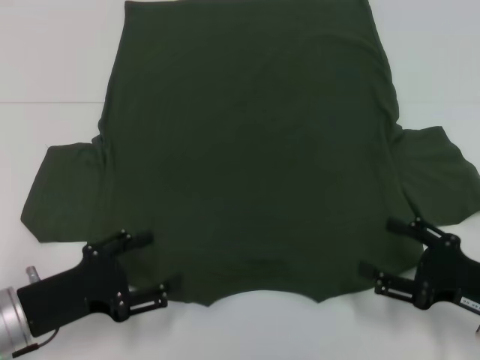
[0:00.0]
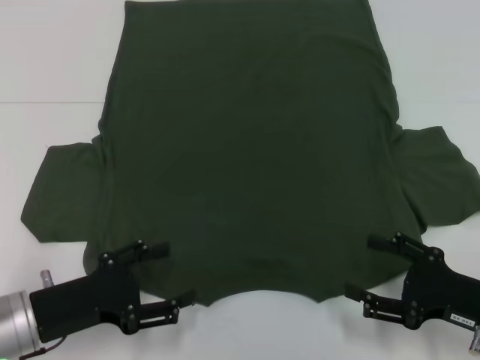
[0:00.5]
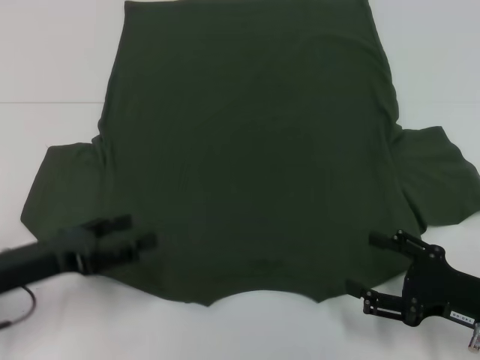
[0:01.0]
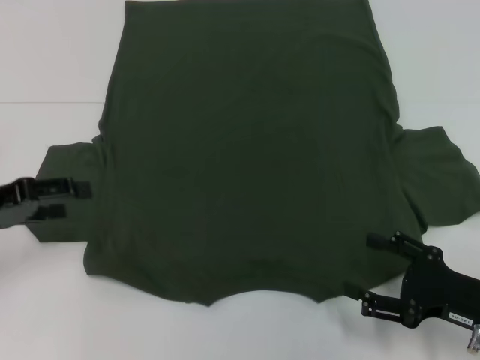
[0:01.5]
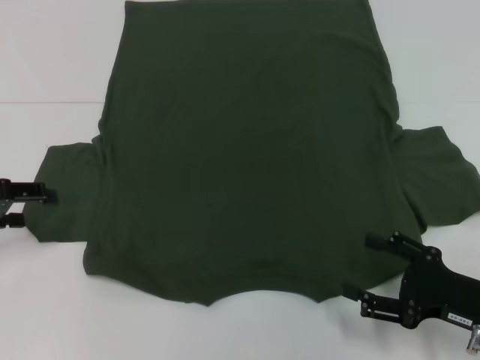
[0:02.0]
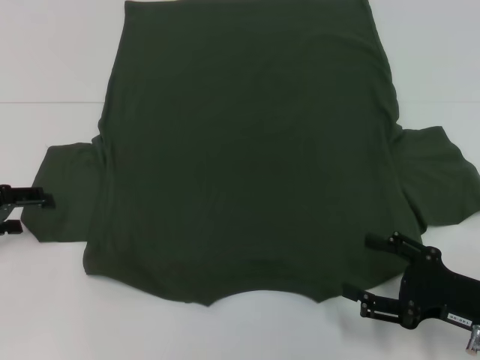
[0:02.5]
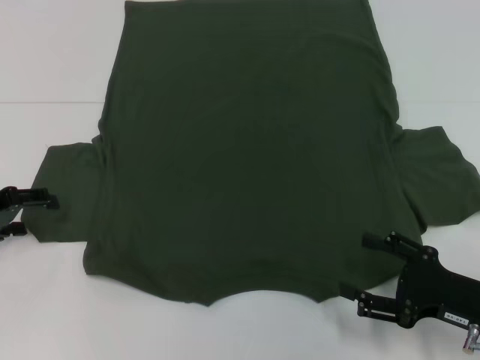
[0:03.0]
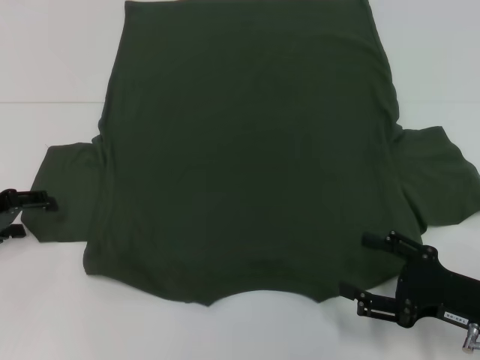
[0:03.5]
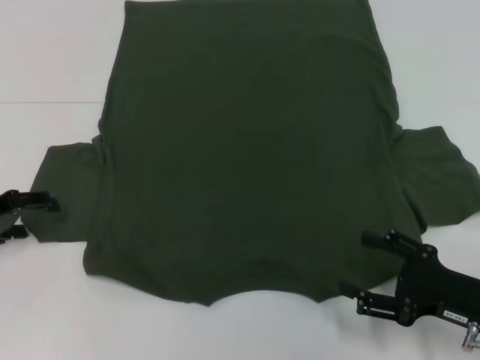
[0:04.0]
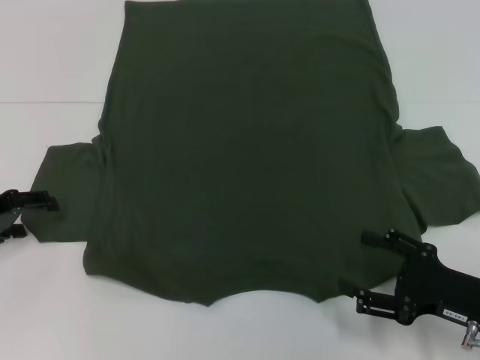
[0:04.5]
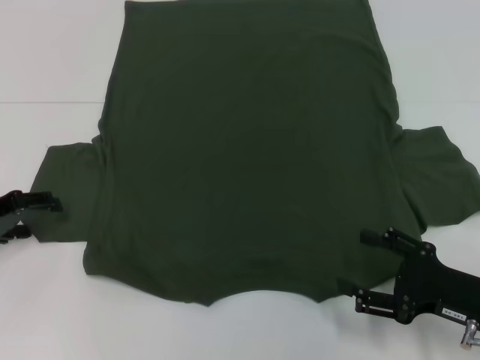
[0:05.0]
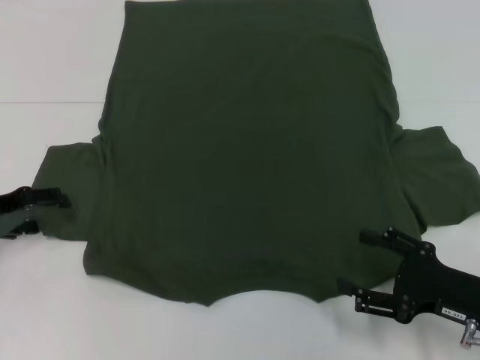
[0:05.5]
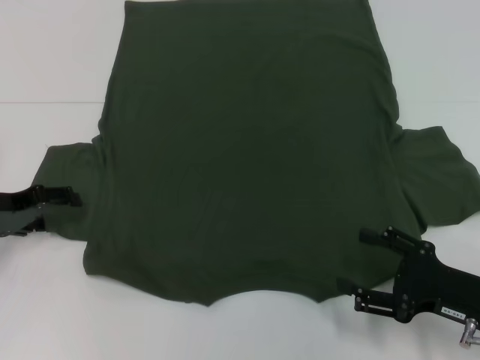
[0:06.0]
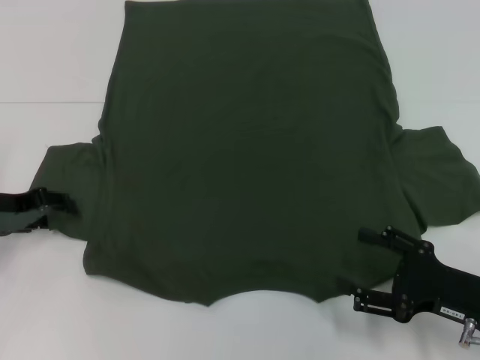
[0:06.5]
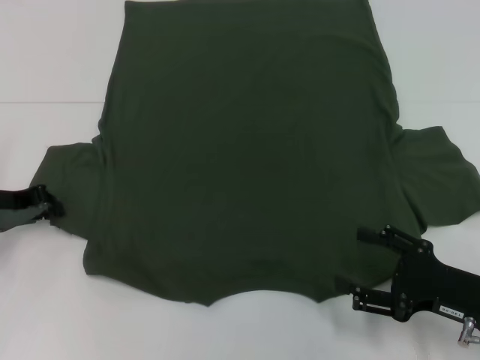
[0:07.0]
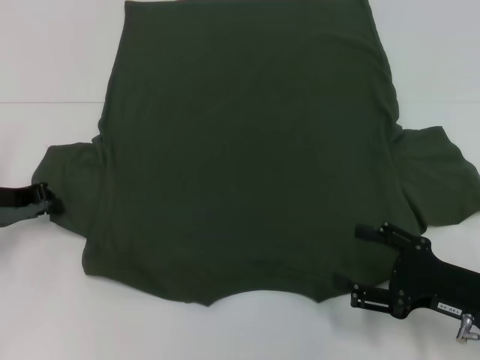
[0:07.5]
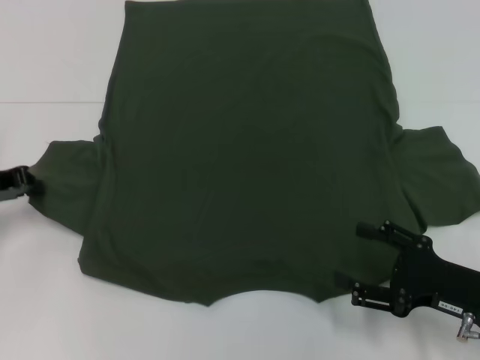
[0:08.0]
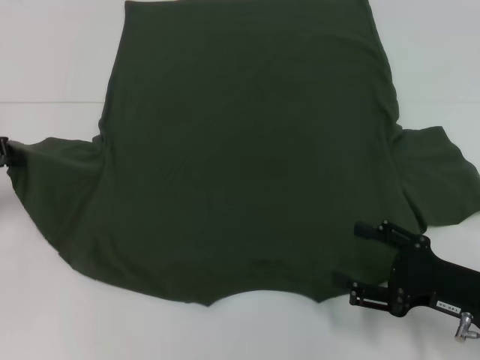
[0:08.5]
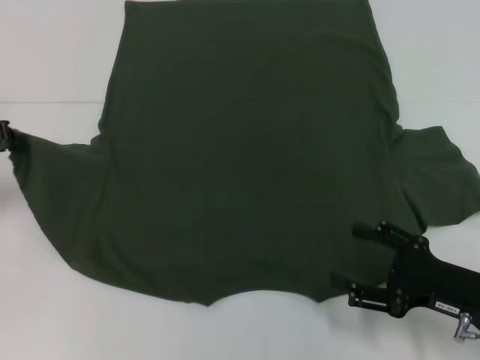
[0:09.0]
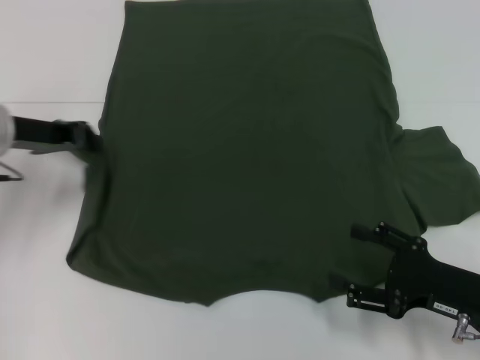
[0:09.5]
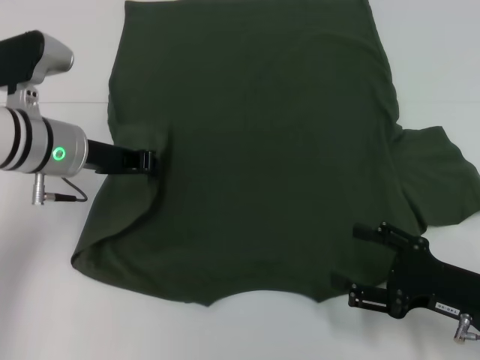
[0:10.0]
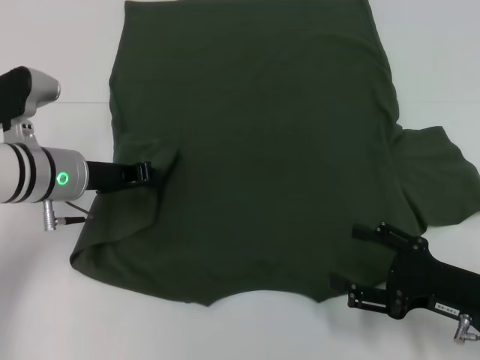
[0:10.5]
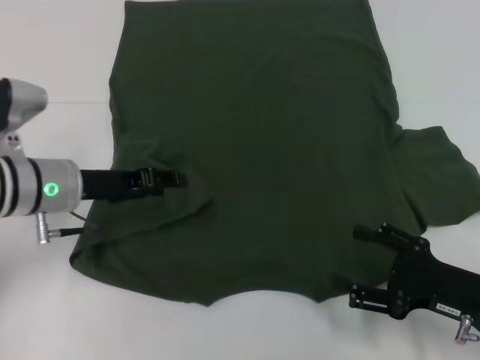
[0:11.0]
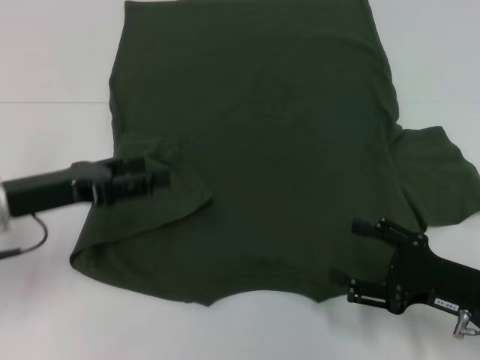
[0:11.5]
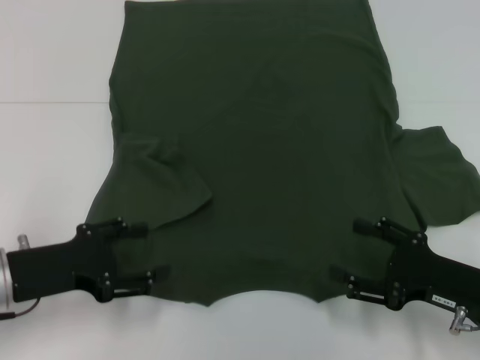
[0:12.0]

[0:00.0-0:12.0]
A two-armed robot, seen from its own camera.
Step, 0:00.0 to 0:10.5: Fold the bottom left sleeve with your left hand.
0:00.0 to 0:02.0: The left gripper shifts approximately 15 cm to the left, forward and upward.
0:02.0 to 0:06.0: There are only small adjustments of the grippers.
0:06.0 to 0:08.0: The left gripper closes its fingers.
0:08.0 to 0:10.0: The left gripper shifts about 15 cm to the right.
0:10.0 to 0:12.0: The left gripper shifts approximately 15 cm backward, to the left and downward, and opens its fingers.

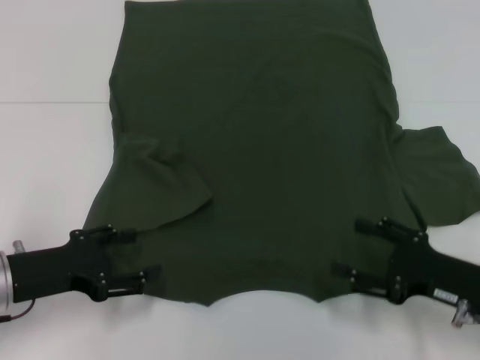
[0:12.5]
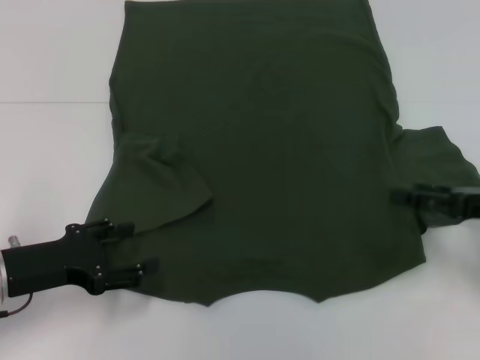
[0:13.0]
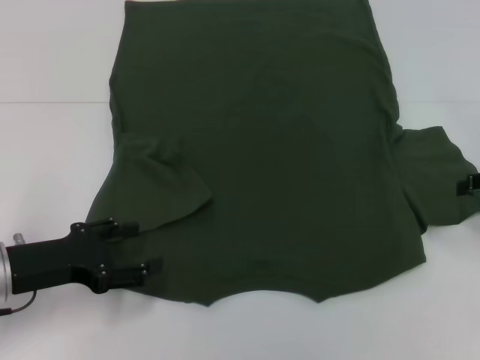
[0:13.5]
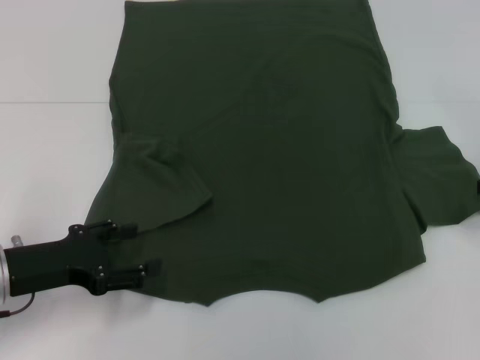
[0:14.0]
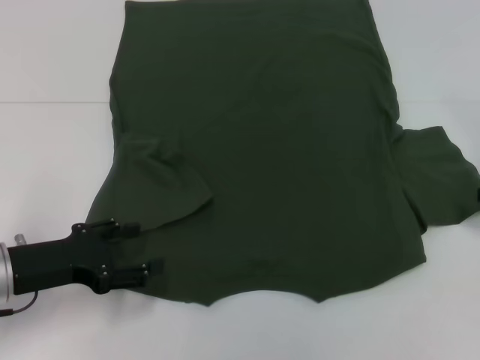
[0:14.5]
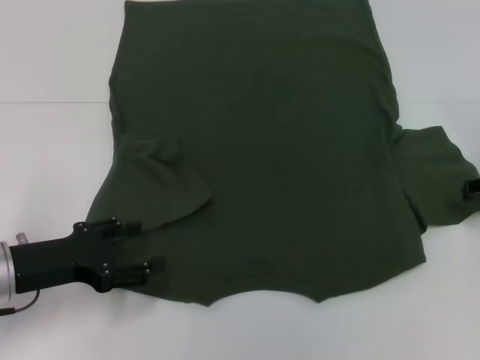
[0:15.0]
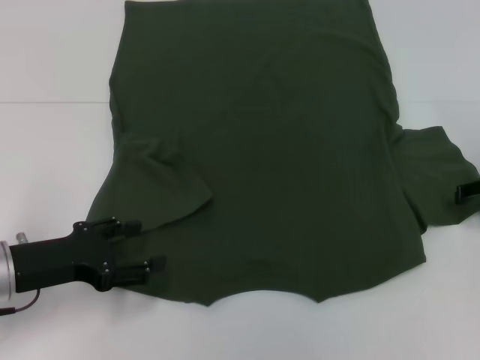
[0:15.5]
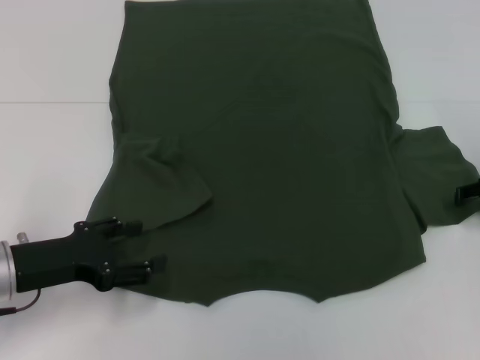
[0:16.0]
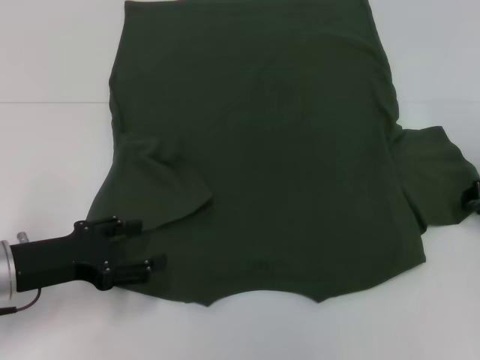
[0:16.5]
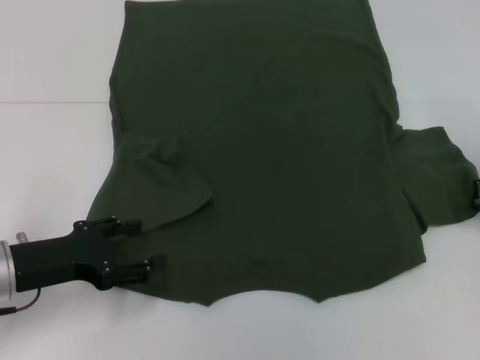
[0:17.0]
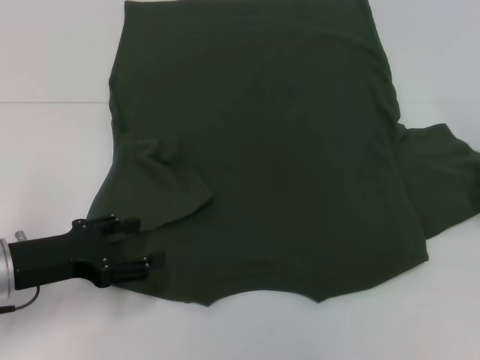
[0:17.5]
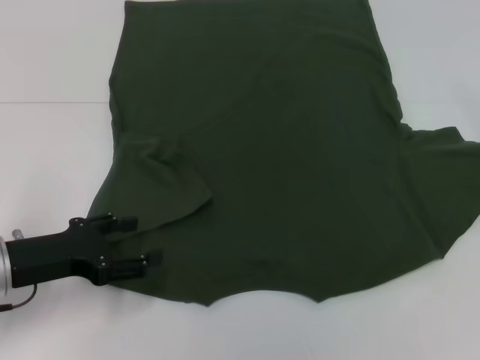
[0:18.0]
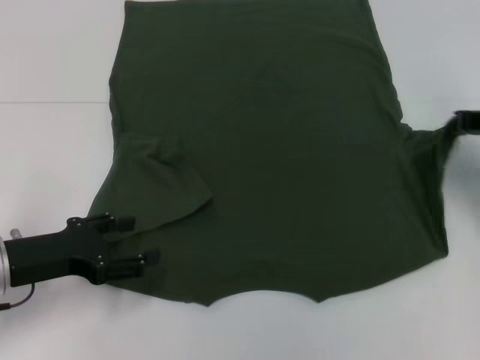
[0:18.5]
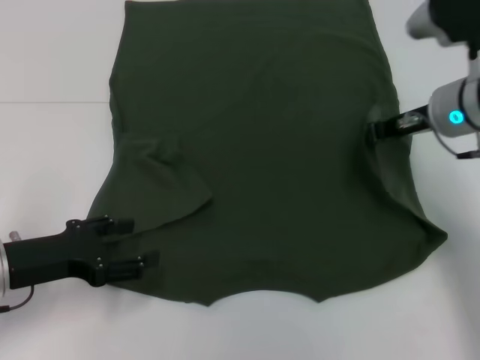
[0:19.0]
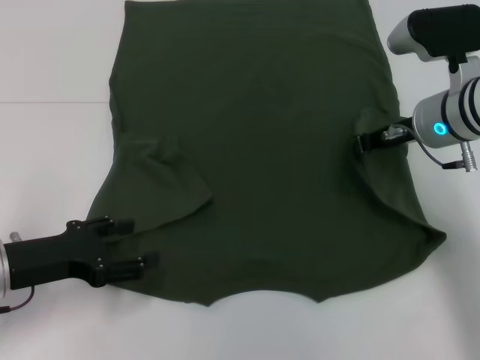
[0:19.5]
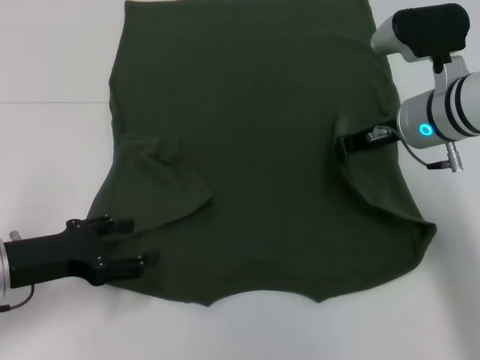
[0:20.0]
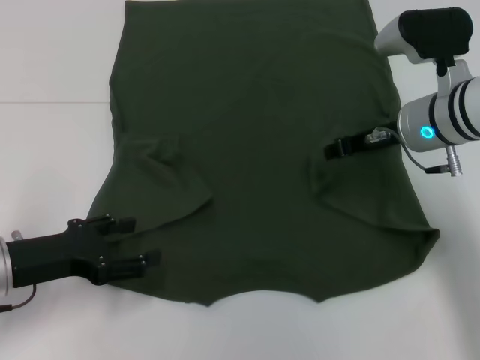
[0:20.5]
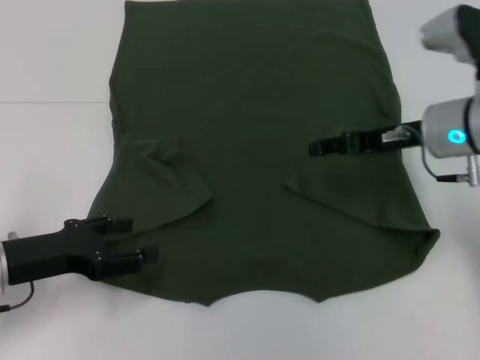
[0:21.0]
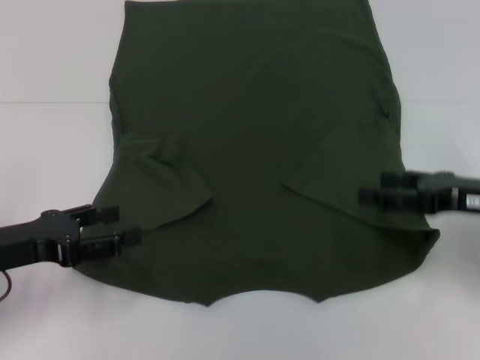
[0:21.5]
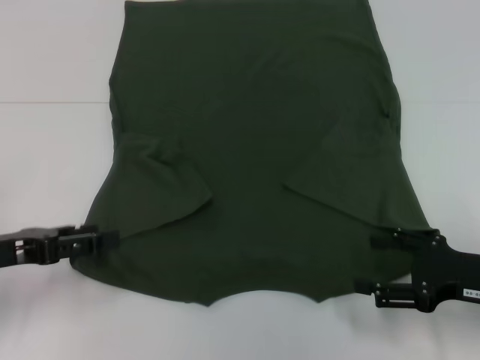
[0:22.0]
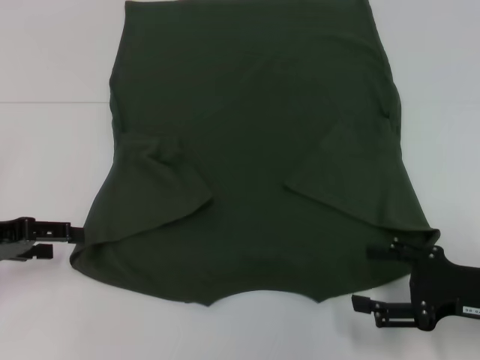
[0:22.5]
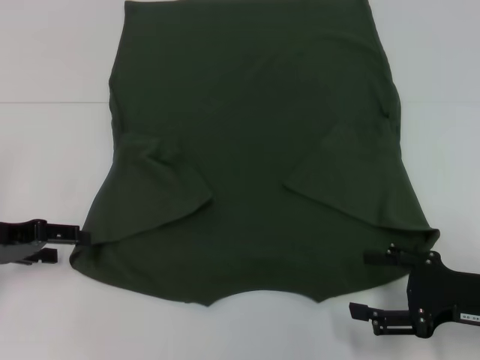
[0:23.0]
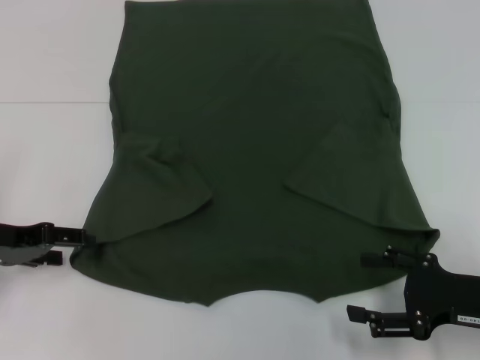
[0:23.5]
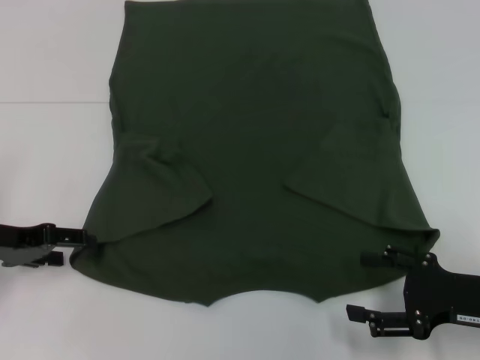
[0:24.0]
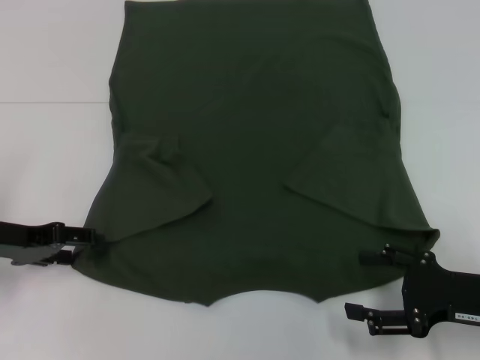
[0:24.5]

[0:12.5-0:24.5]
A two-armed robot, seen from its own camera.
Step, 0:12.5 to 0:20.5: Fold the bottom right sleeve with your right hand.
0:12.5 to 0:14.5: The right gripper shifts approximately 20 cm forward, upward and to the right.
0:16.5 to 0:18.5: The right gripper shifts by roughly 5 cm, and closes up.
0:18.5 to 0:20.5: The right gripper shifts some 10 cm to the left.
0:20.5 to 0:22.5: The left gripper shifts about 5 cm to the left, while the right gripper is displaced backward, to the right and downward by about 20 cm, and opens up.
0:22.5 to 0:24.5: There are only small adjustments of the grippers.

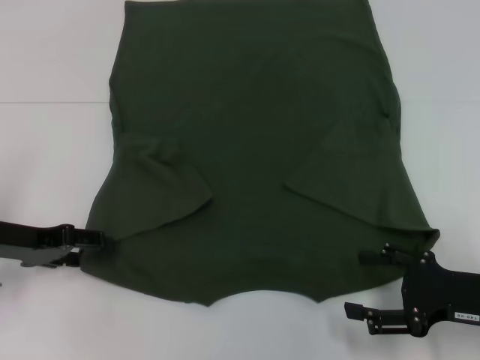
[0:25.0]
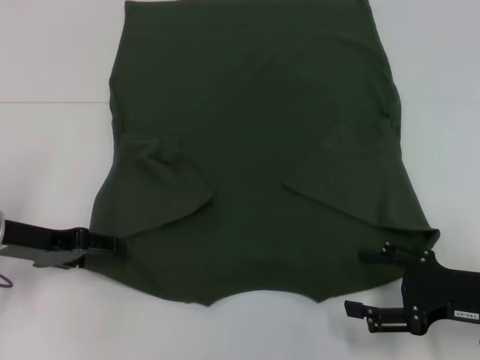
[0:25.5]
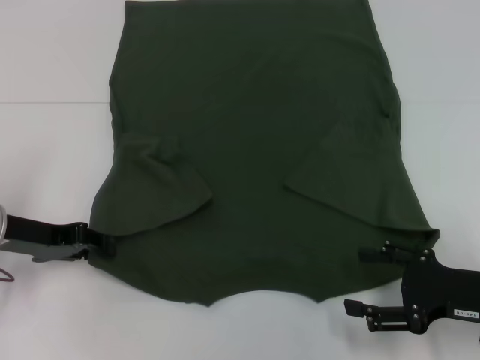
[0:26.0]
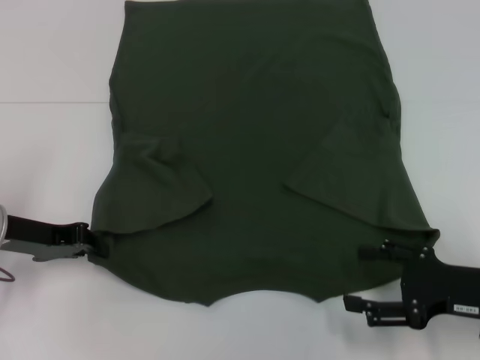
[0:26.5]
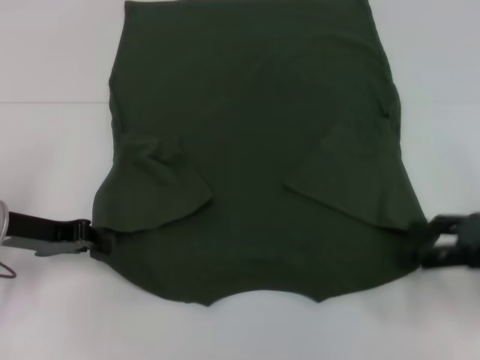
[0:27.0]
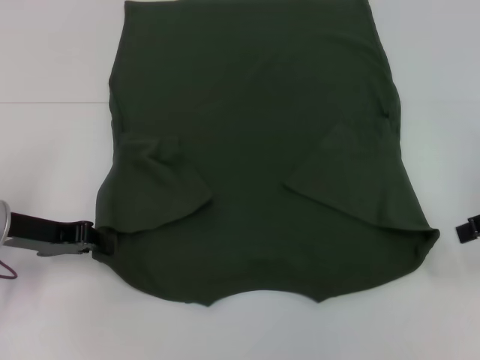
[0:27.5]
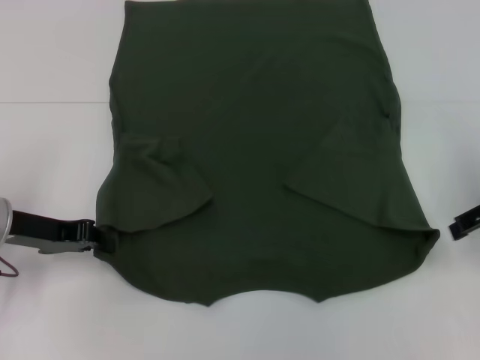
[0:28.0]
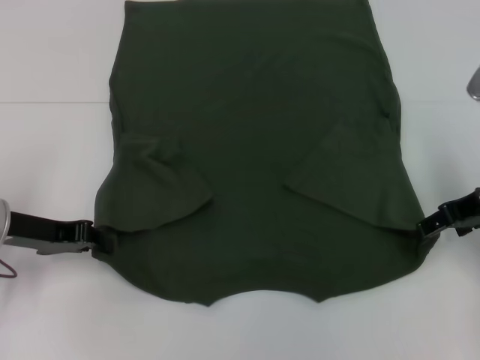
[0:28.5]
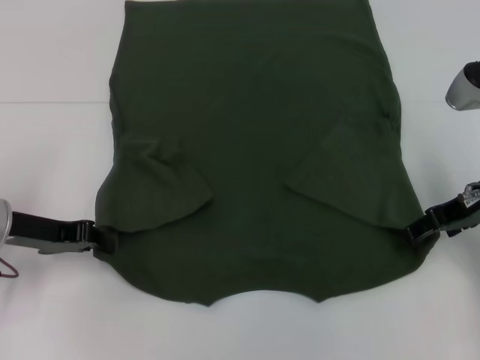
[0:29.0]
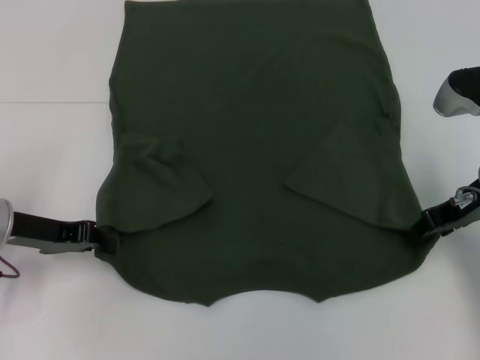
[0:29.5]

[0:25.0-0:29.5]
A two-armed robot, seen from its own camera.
0:25.0 to 0:27.0: The right gripper is displaced upward by roughly 10 cm; the left gripper closes.
0:27.0 to 0:29.5: The right gripper is displaced forward and to the left by about 10 cm.
